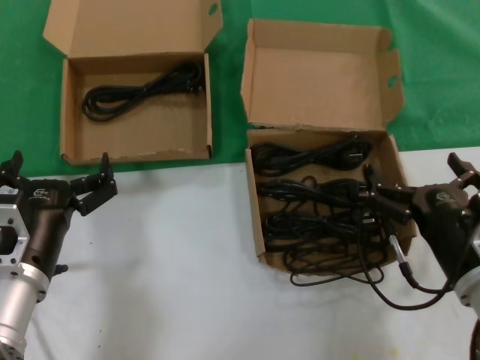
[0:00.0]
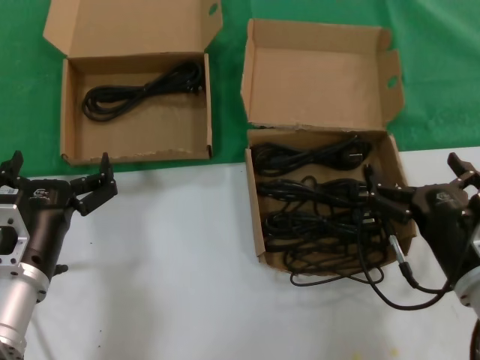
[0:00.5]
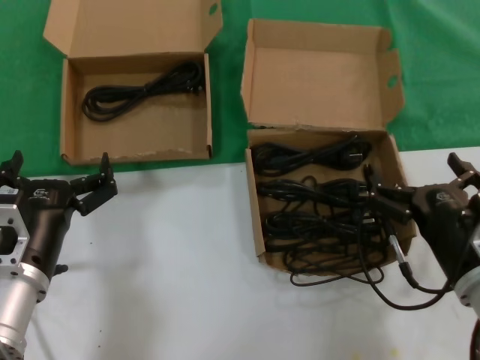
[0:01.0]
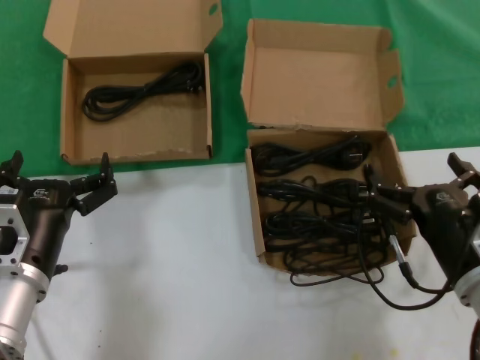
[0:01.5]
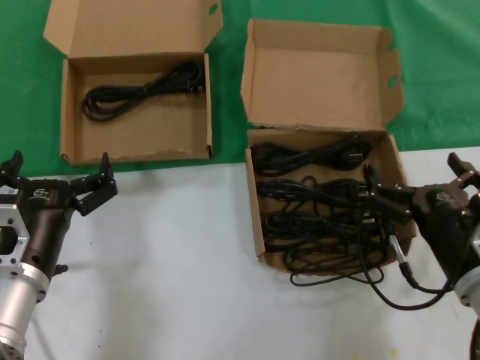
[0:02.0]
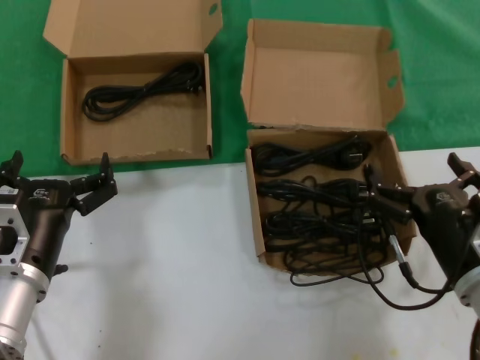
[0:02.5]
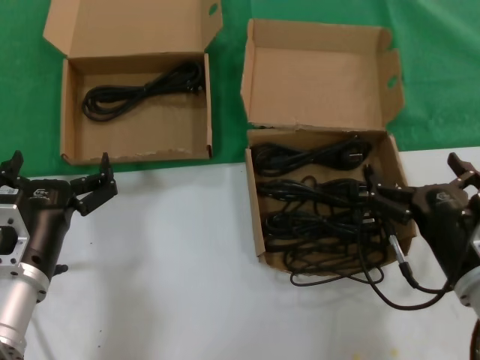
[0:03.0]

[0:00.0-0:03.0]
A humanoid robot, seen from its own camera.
Task of the whole recording: take the parts from the box containing them and put them into an empty box.
0:00.0 to 0:03.0: Both hands stay put.
